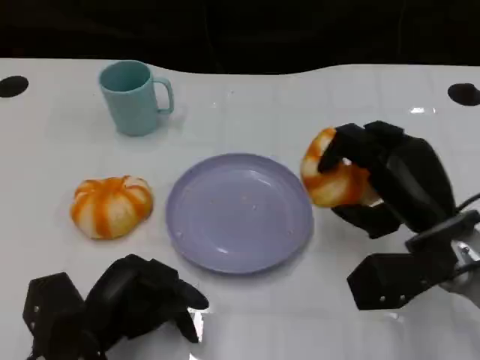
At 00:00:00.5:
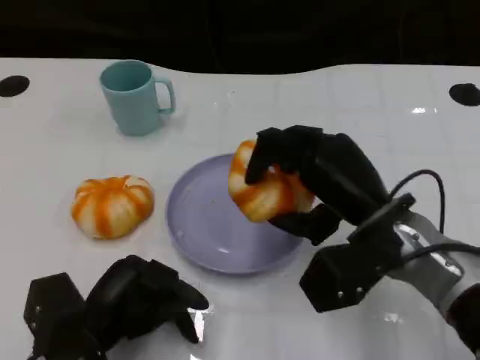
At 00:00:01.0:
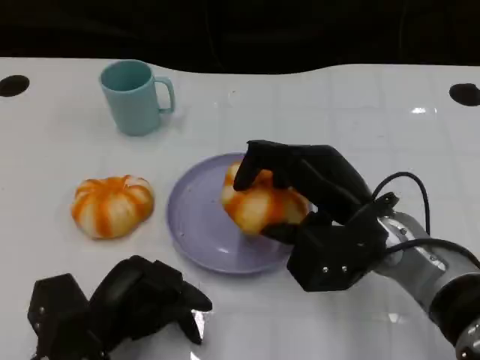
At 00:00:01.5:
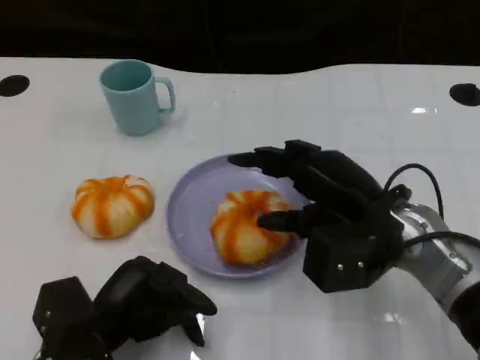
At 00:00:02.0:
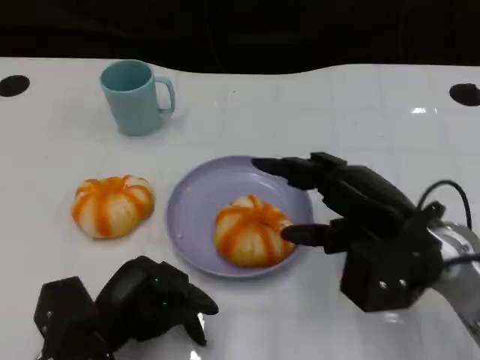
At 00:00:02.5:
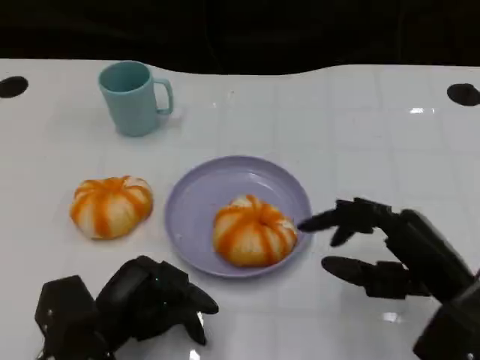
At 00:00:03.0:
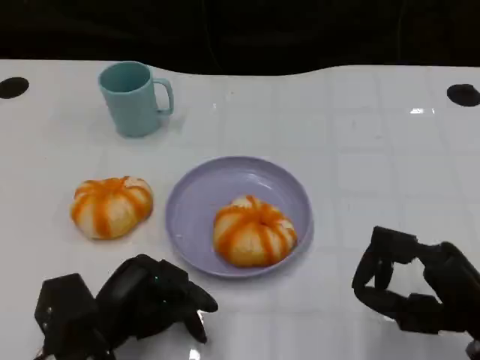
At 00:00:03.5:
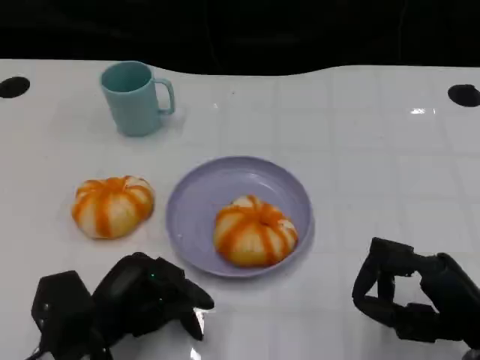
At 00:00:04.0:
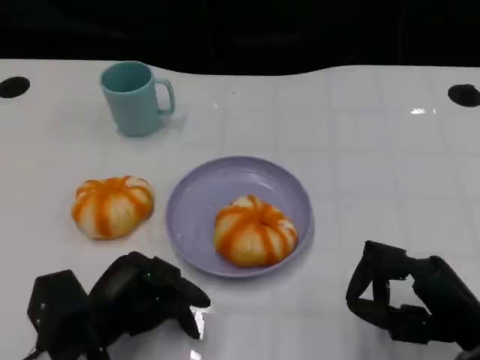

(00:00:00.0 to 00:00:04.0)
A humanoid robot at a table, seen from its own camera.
Task of the whole recording: Grasp the bread from the table and place it into the plate.
00:00:02.0 - 00:00:04.0: The right hand heads backward, downward and to the right, covering about 10 cm.

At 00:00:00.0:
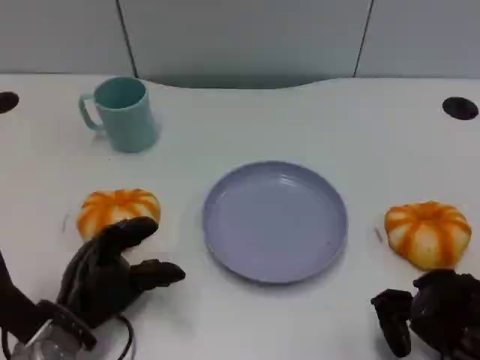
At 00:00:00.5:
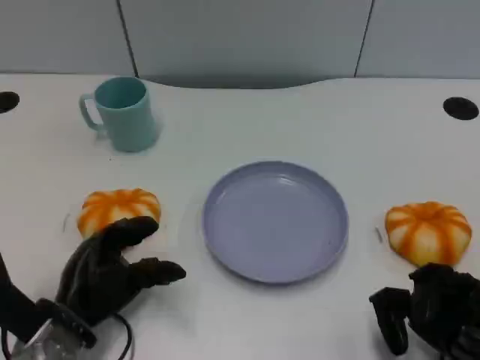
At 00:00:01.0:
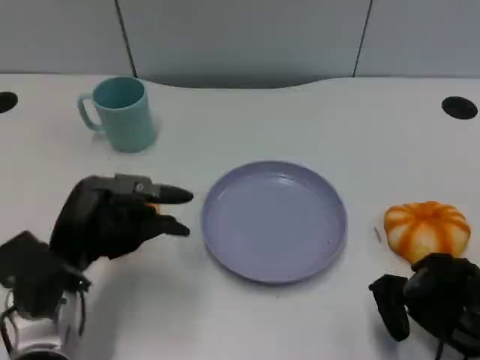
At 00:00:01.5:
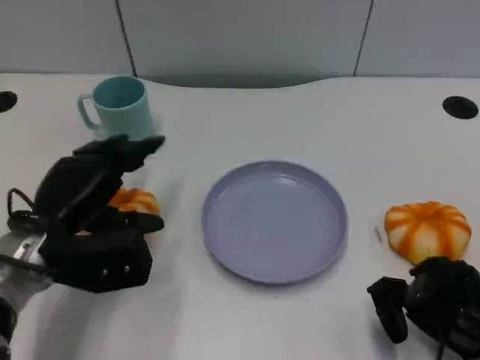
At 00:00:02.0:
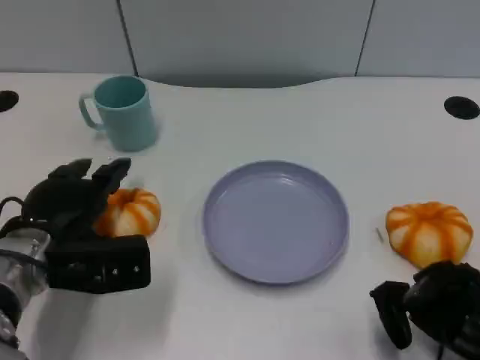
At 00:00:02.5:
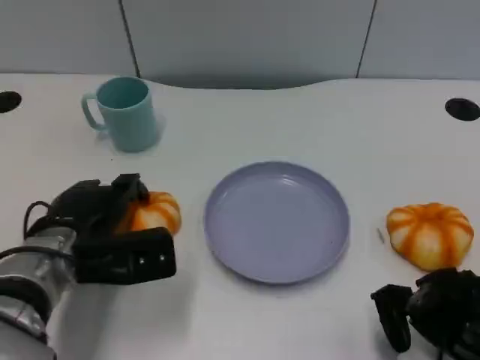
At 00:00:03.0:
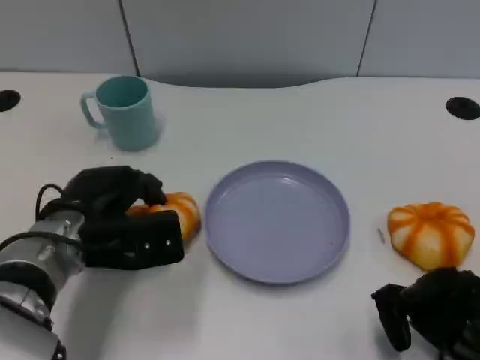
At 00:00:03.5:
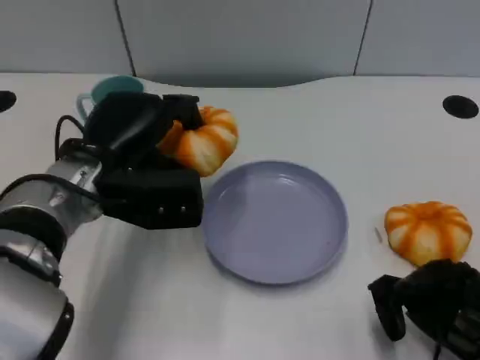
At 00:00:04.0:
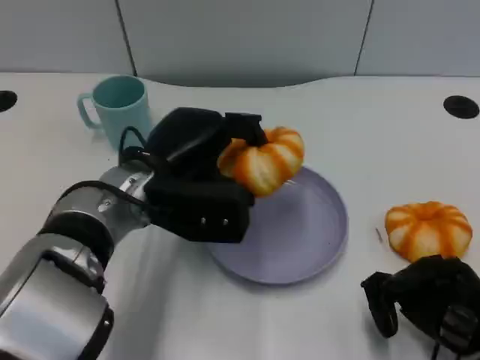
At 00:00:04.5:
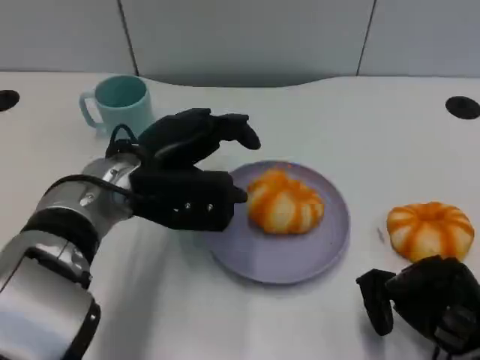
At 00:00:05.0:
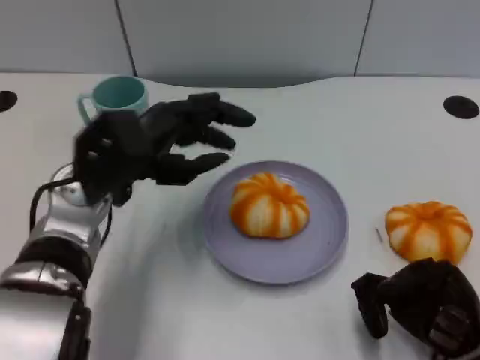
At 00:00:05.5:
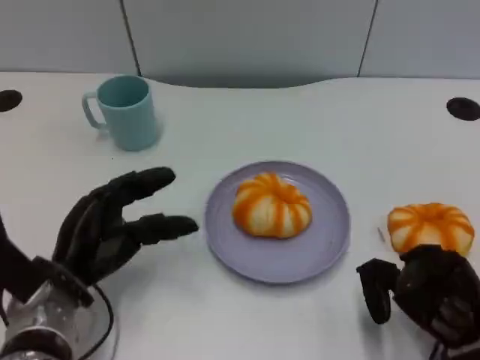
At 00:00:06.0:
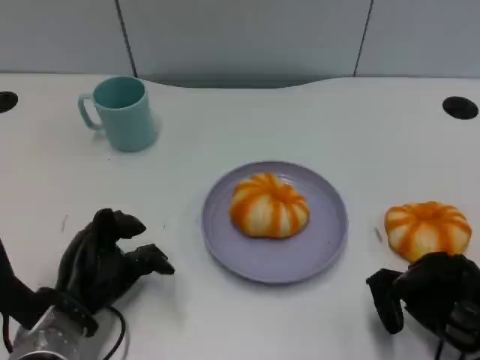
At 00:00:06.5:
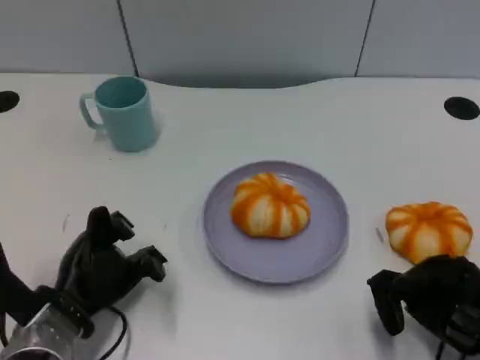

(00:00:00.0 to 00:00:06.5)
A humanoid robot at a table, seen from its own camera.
Task of the whole recording: Grasp the bread from the table and place it into the plate.
00:00:00.0 - 00:00:02.0: The left hand travels upward and forward by roughly 10 cm.
00:00:02.0 - 00:00:04.5: The left hand shifts approximately 10 cm to the right and upward.
00:00:04.5 - 00:00:06.5: The left hand shifts about 15 cm downward, to the left and backward.

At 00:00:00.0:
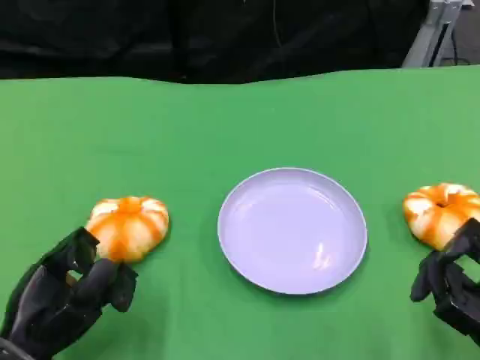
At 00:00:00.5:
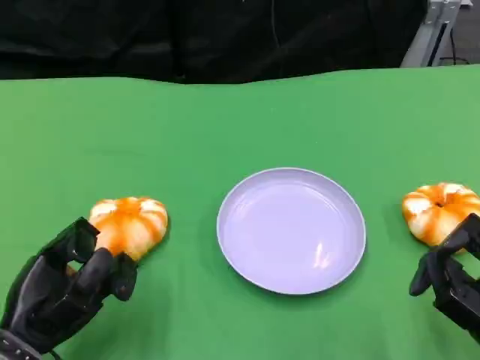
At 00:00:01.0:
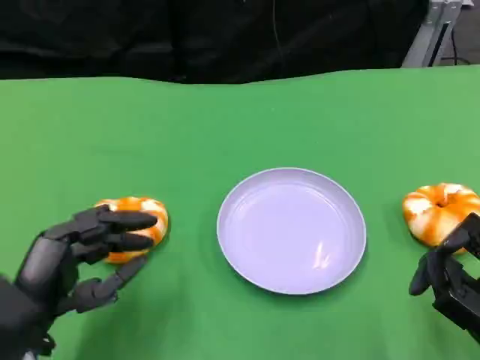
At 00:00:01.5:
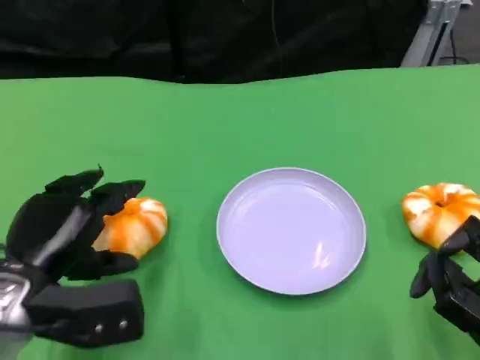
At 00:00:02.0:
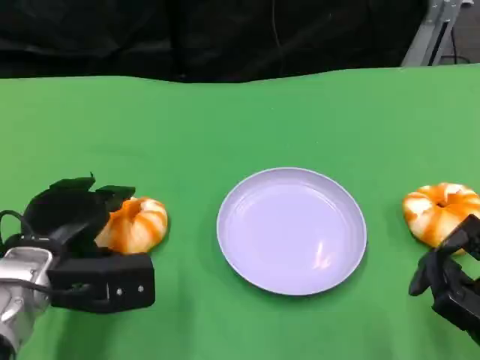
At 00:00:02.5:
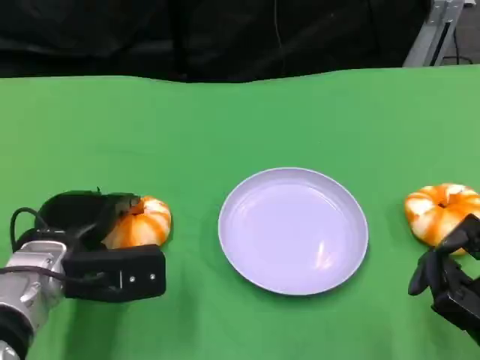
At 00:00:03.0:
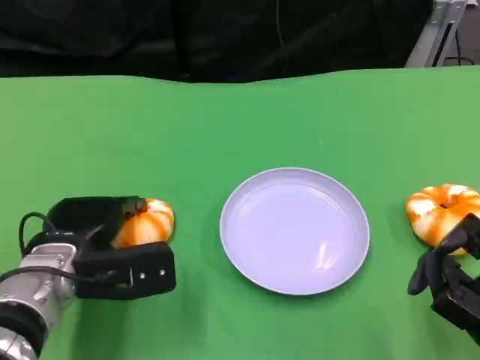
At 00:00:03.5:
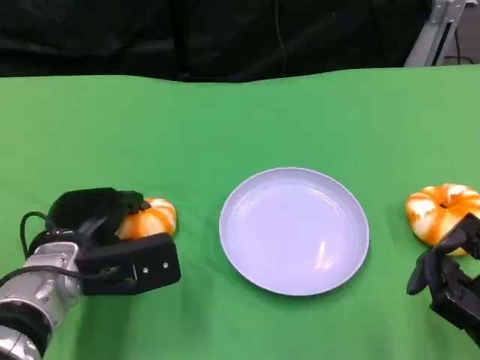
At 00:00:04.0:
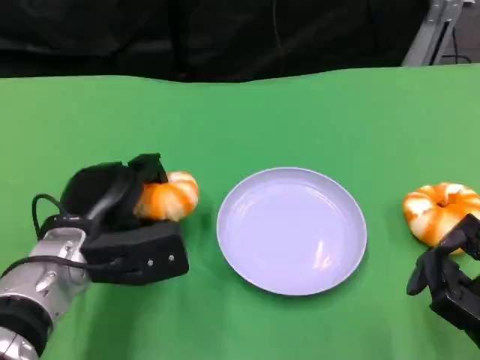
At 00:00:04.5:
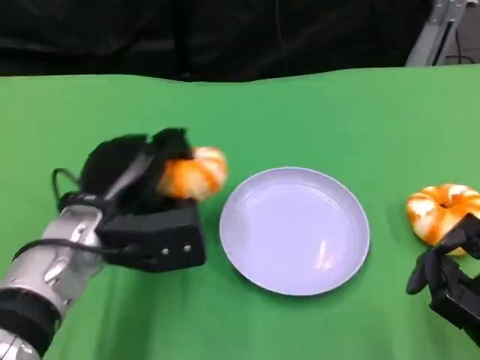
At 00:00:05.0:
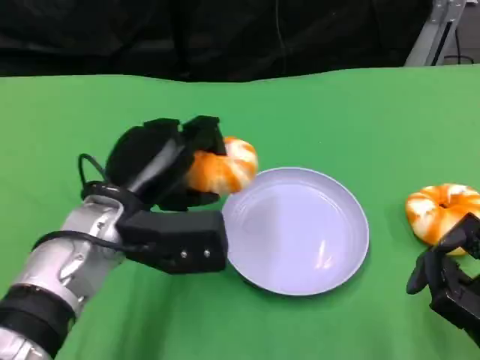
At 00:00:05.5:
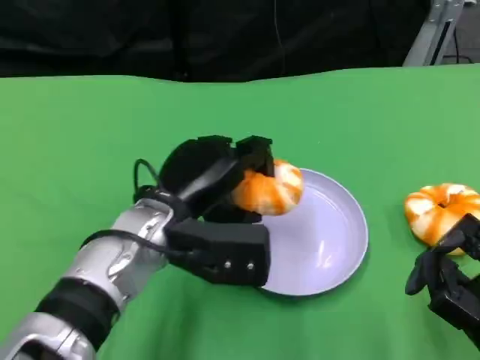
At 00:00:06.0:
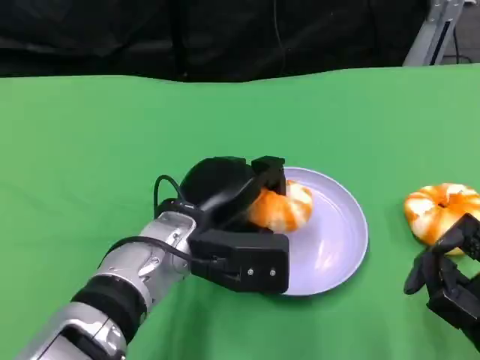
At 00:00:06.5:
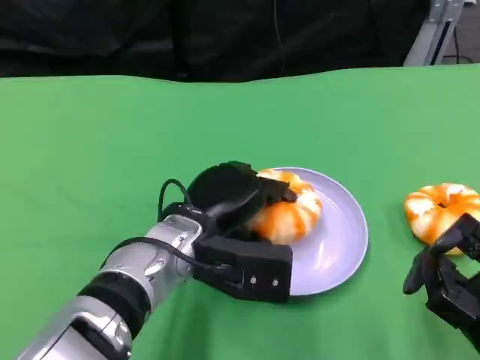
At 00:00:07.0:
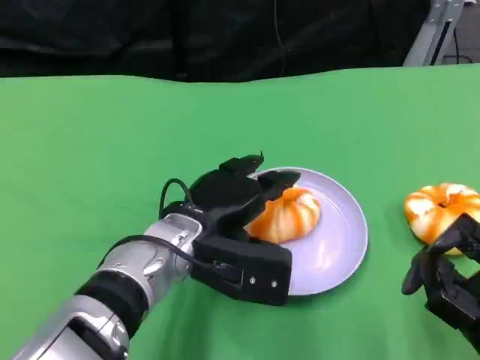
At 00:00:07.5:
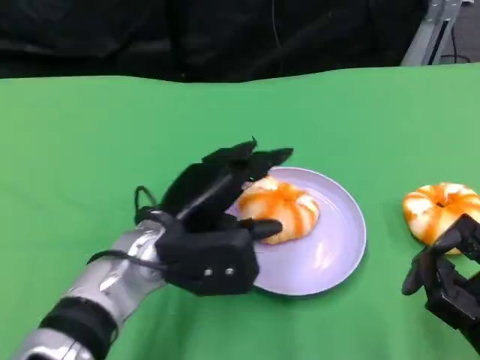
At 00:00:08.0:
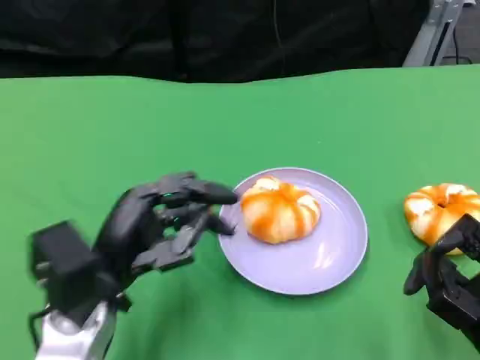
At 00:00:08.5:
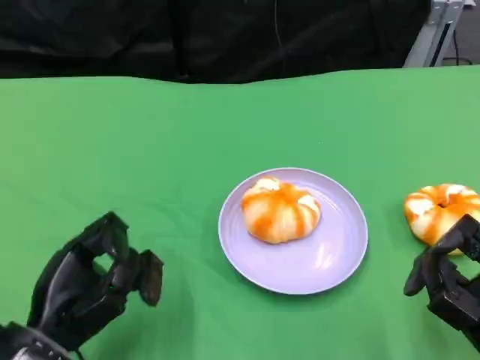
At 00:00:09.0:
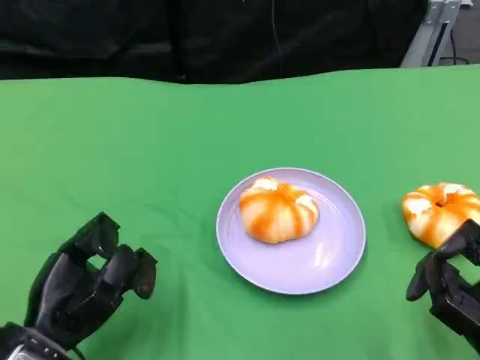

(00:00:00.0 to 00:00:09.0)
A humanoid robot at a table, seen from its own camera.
Task of the whole recording: Grasp the bread from the table and place it into the plate.
00:00:00.0 - 00:00:02.0: The left hand moves forward, some 10 cm.
00:00:02.0 - 00:00:04.5: The left hand travels to the right by approximately 5 cm.
00:00:04.5 - 00:00:07.0: The left hand shifts roughly 10 cm to the right.
00:00:07.0 - 00:00:09.0: The left hand travels to the left and backward by approximately 20 cm.

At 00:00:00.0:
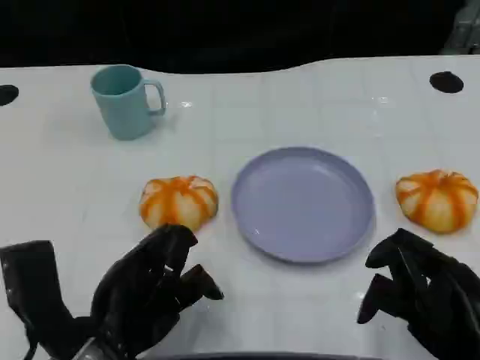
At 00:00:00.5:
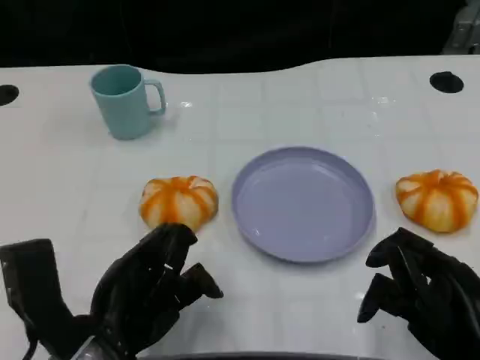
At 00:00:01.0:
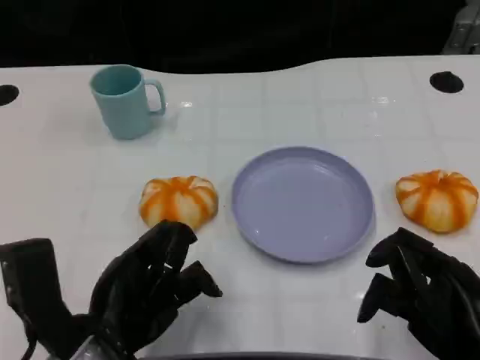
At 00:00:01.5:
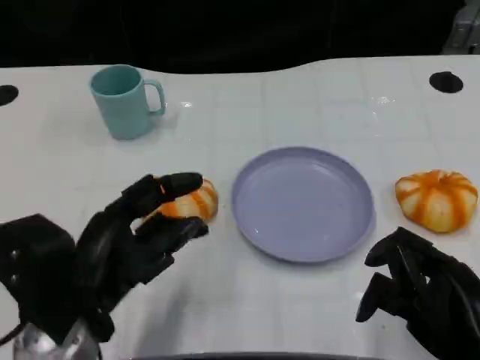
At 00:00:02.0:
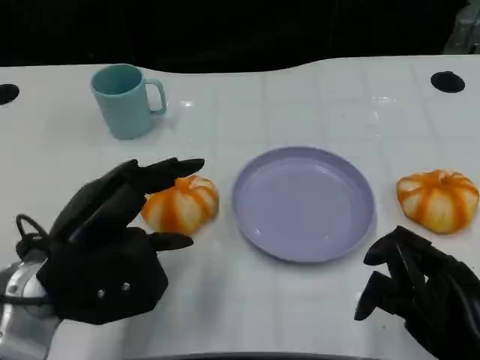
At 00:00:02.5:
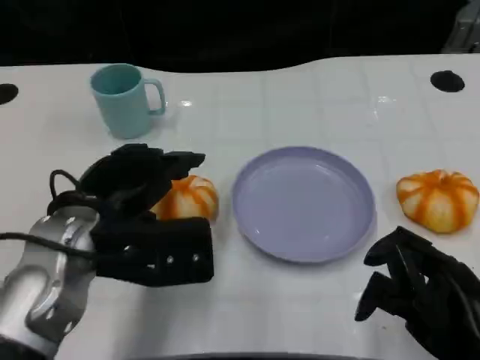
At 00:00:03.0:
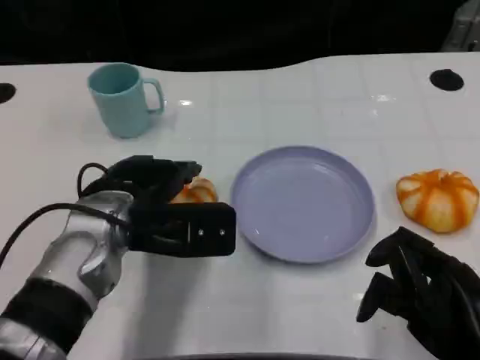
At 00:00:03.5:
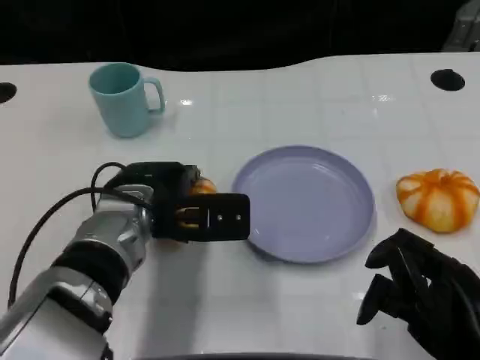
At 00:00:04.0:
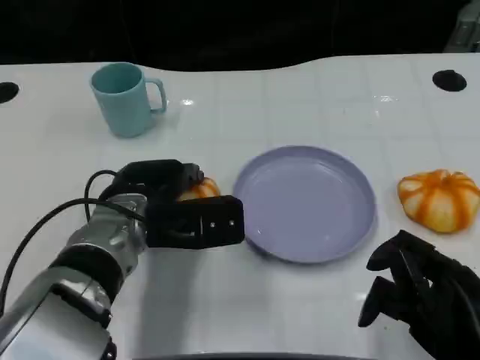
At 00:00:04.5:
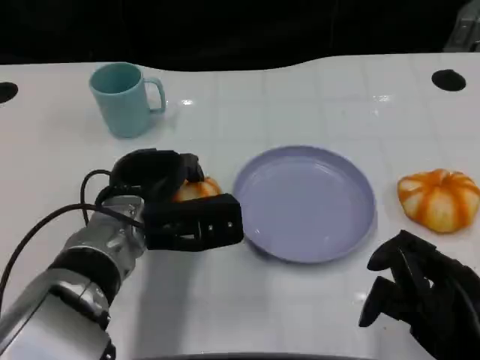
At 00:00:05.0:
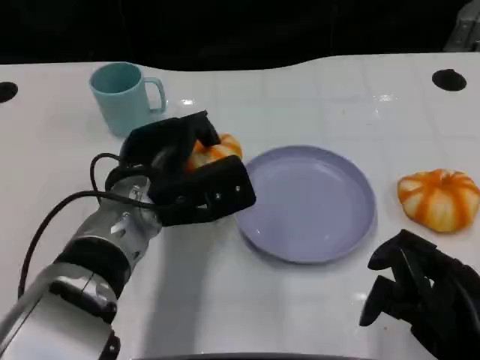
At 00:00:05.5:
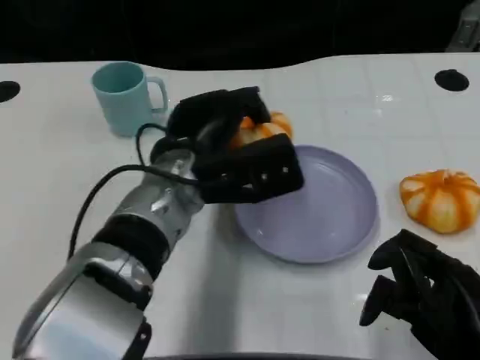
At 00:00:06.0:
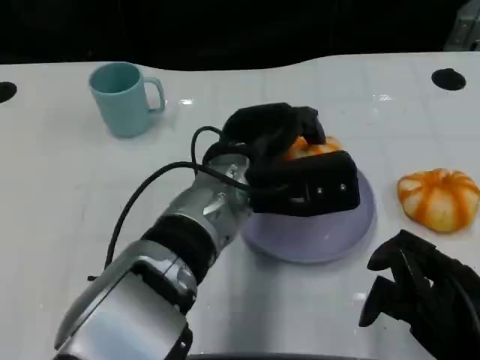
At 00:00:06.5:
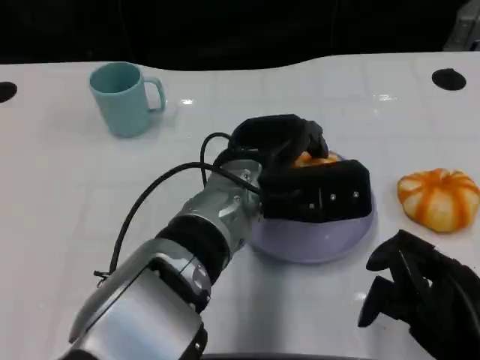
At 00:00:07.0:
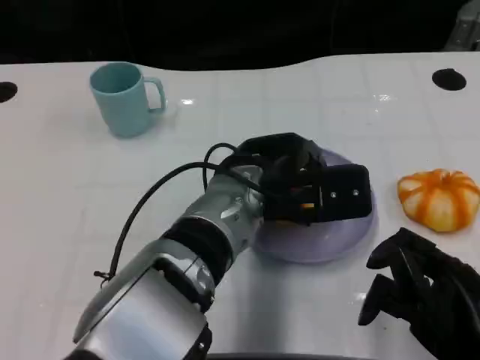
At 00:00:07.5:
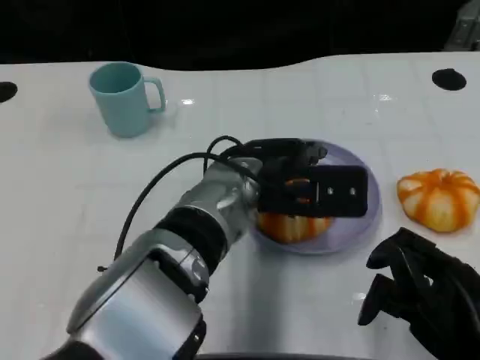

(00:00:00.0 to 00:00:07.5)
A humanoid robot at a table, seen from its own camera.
Task of the whole recording: Grasp the bread from the table and place it into the plate.
00:00:00.0 - 00:00:02.0: The left hand is displaced forward by about 5 cm.
00:00:02.0 - 00:00:04.0: The left hand heads forward and to the right, covering some 10 cm.
00:00:04.0 - 00:00:05.5: The left hand travels to the right and upward by roughly 10 cm.
